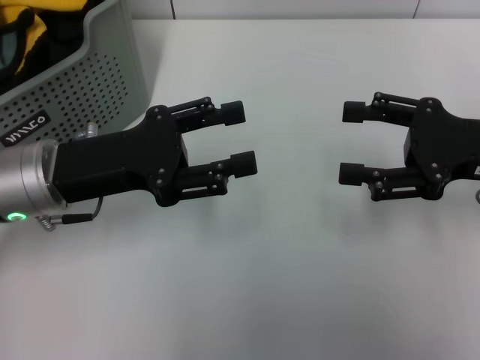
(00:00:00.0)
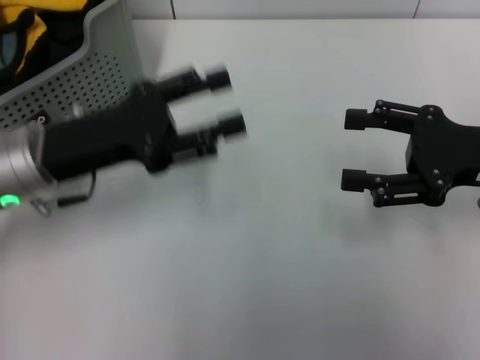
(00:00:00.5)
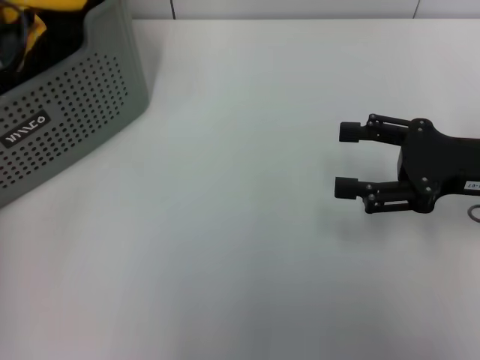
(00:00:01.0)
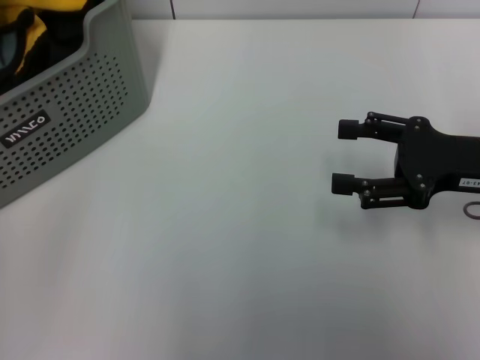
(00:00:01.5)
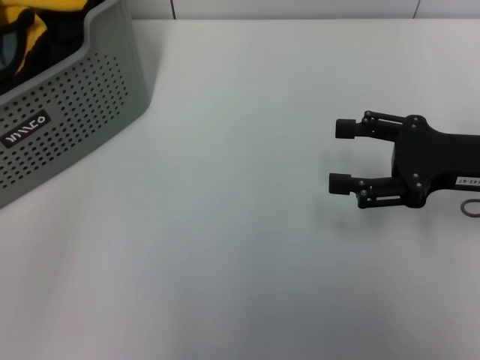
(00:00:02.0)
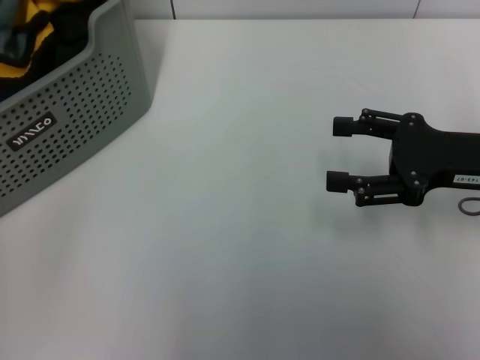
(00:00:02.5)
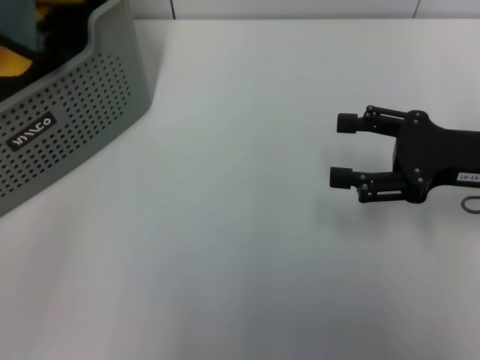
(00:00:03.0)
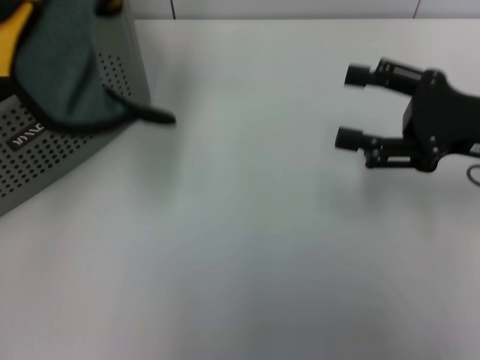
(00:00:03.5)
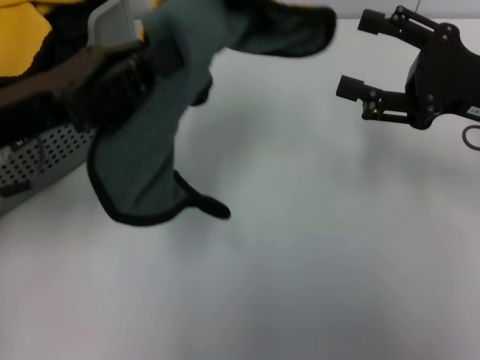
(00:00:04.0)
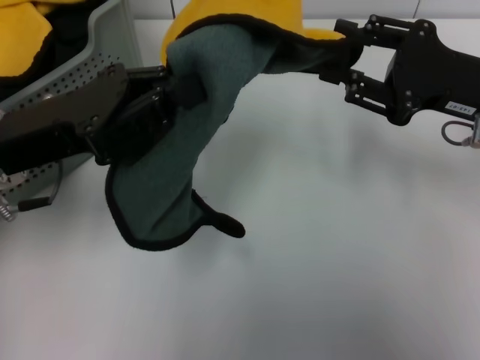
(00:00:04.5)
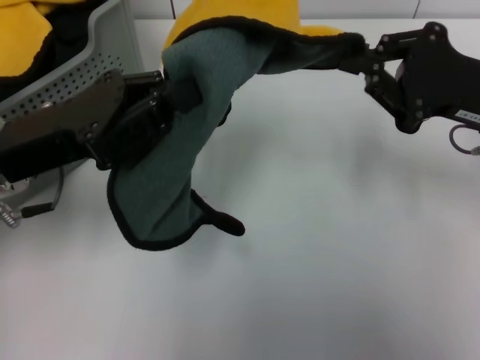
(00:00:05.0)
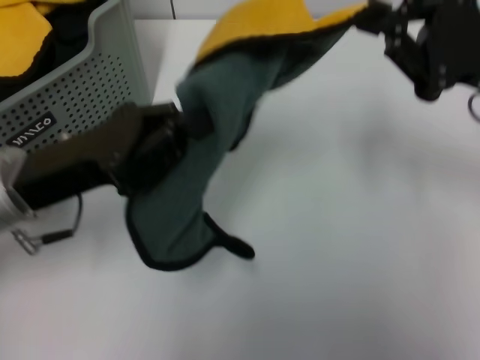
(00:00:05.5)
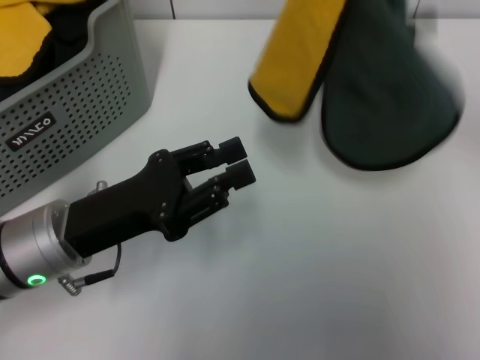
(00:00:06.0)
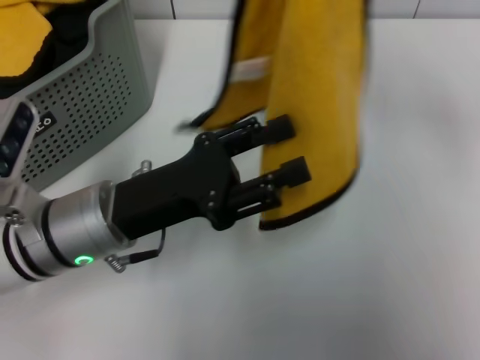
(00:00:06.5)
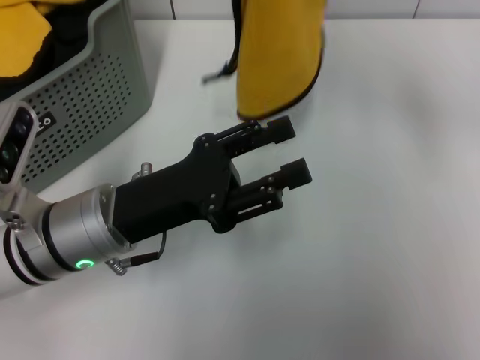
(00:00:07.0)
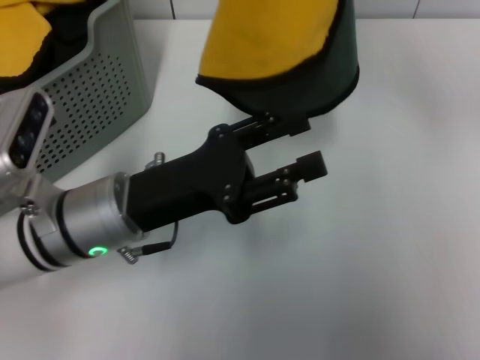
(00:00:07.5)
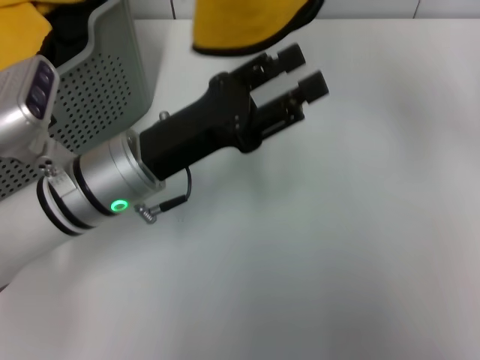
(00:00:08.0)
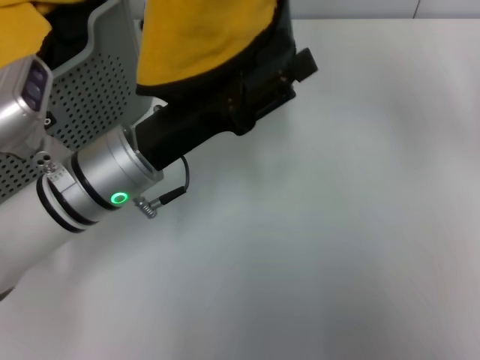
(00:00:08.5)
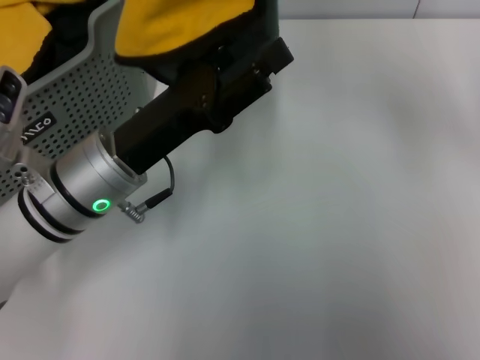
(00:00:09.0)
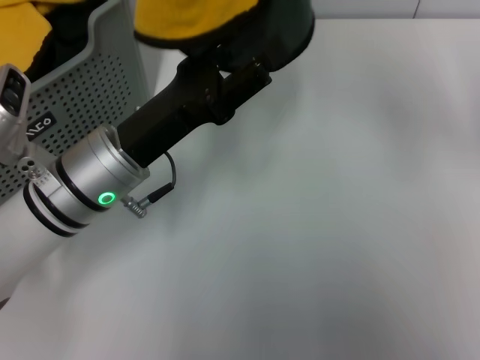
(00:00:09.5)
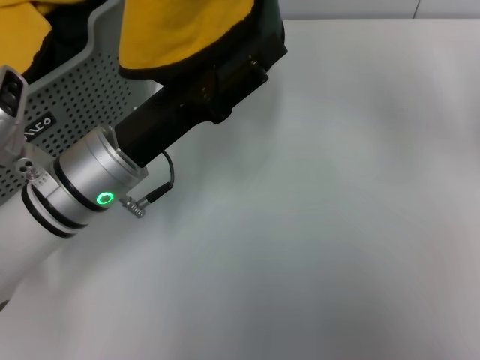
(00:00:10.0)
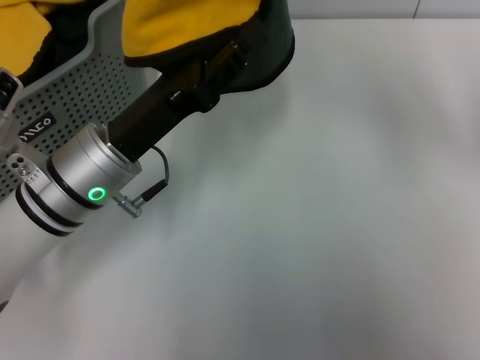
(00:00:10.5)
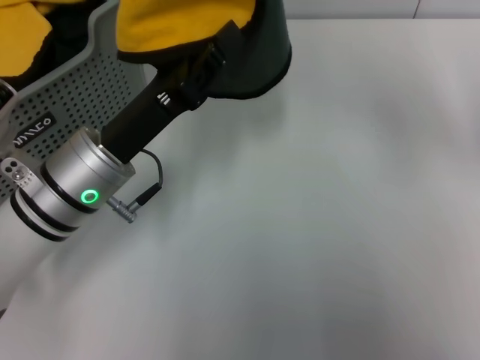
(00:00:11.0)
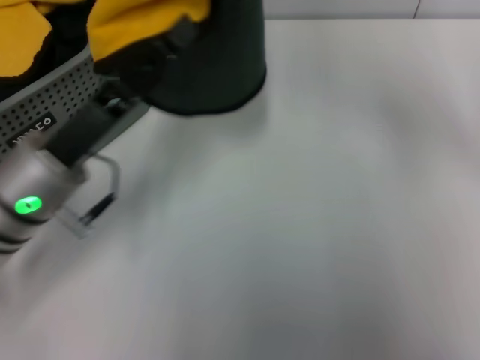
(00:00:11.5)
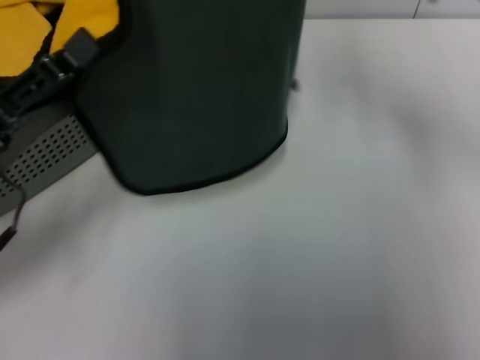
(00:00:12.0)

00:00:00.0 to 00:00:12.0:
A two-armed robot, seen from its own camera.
Task of the whole recording: pick up the towel from the storage box and lay it flat on the table.
Step, 00:00:00.0 to 00:00:02.5: Pick up a towel with the left gripper.
Step, 00:00:03.0 to 00:00:05.0: Spread the towel flat with the left gripper.
00:00:00.0 to 00:00:02.0: The left gripper is displaced to the left and upward by approximately 15 cm.
00:00:02.0 to 00:00:04.0: The left gripper goes about 10 cm to the right, and closes.
00:00:04.0 to 00:00:06.0: The right gripper is displaced upward by approximately 15 cm, and closes its fingers. The left gripper is displaced downward by roughly 10 cm.
00:00:06.0 to 00:00:08.0: The left gripper shifts approximately 10 cm to the right and forward, and opens up. The right gripper moves to the left, roughly 10 cm.
00:00:08.0 to 00:00:10.0: There are only small adjustments of the grippers.
00:00:10.0 to 00:00:12.0: The left gripper is displaced to the left by about 10 cm, and closes, while the right gripper goes some 10 cm downward and to the right.

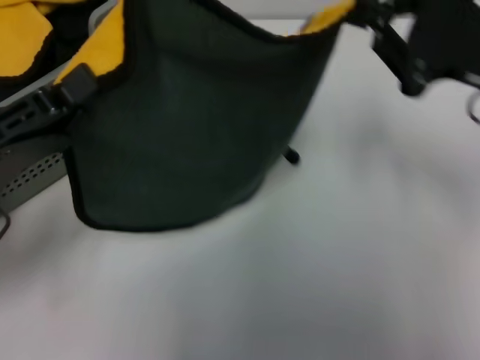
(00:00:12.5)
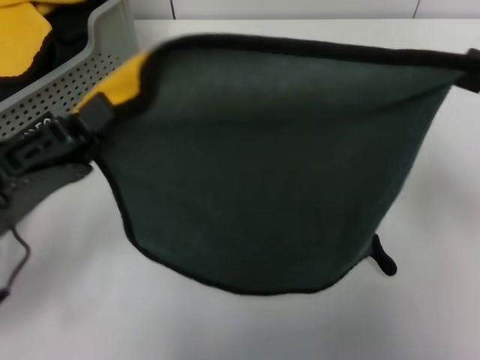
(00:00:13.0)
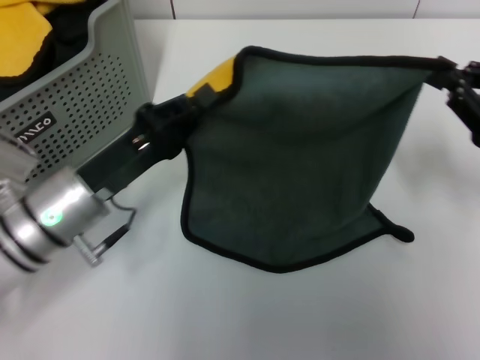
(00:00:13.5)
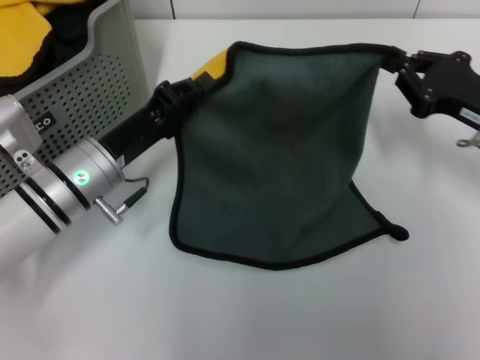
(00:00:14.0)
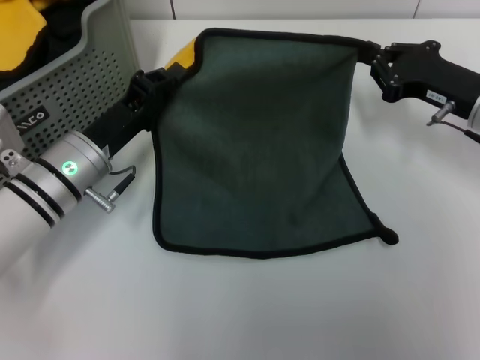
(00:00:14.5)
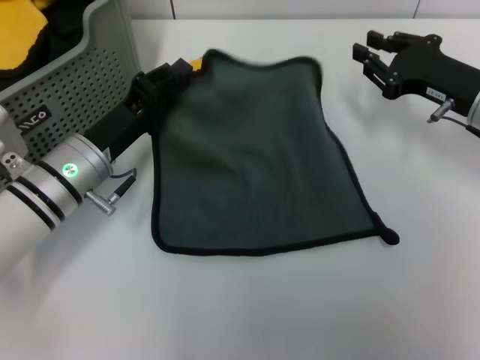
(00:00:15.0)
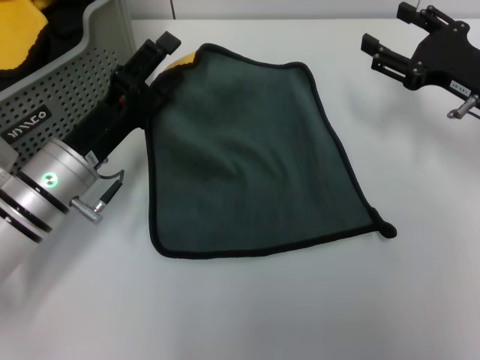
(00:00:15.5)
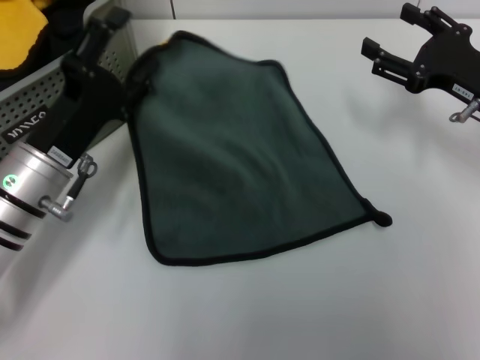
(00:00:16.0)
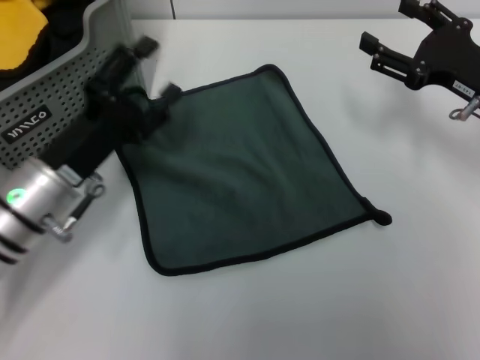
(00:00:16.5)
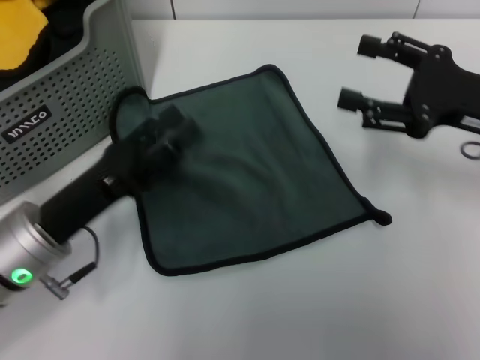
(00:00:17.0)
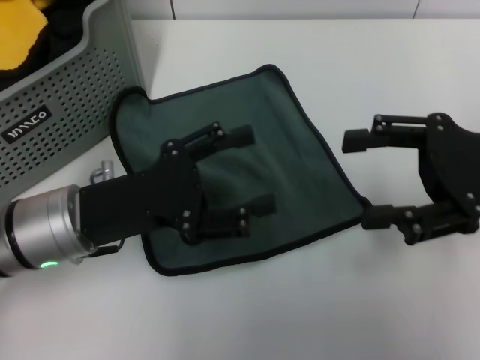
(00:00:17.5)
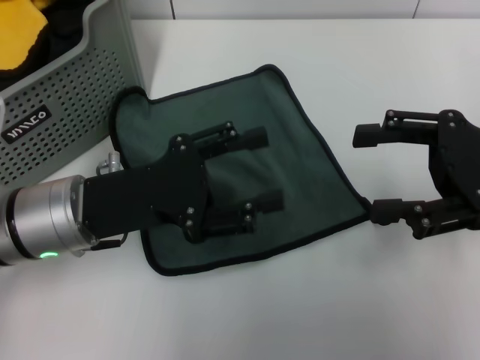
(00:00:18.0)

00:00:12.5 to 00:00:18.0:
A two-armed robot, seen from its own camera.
Task of the whole recording: pick up the towel from the storage box and lay it flat on the table.
Step, 00:00:12.5 to 00:00:16.0: Spread the towel flat with the right gripper.
00:00:12.5 to 00:00:14.5: The right gripper moves downward and forward, roughly 15 cm. Meanwhile the left gripper goes some 15 cm forward, downward and to the right.
00:00:14.5 to 00:00:16.0: The right gripper opens its fingers. The left gripper opens its fingers.
00:00:16.0 to 00:00:18.0: The left gripper ends up about 5 cm from where it was. The right gripper shifts roughly 10 cm backward and upward.
